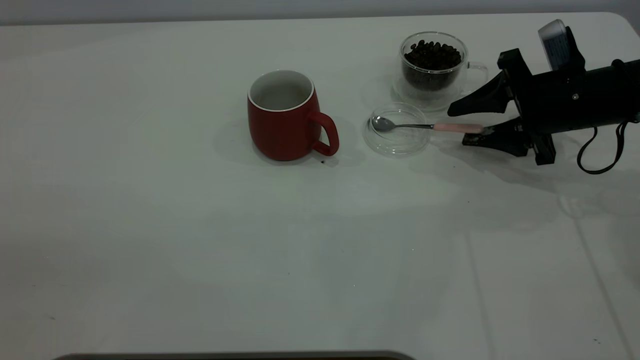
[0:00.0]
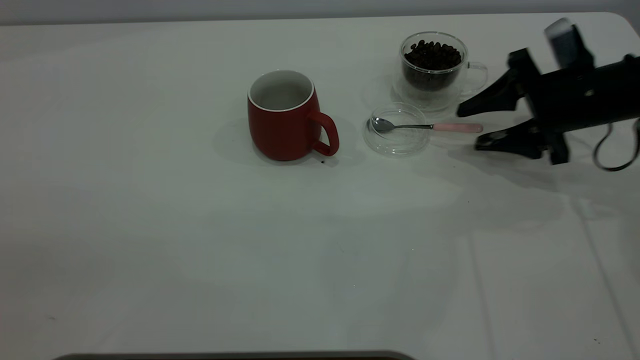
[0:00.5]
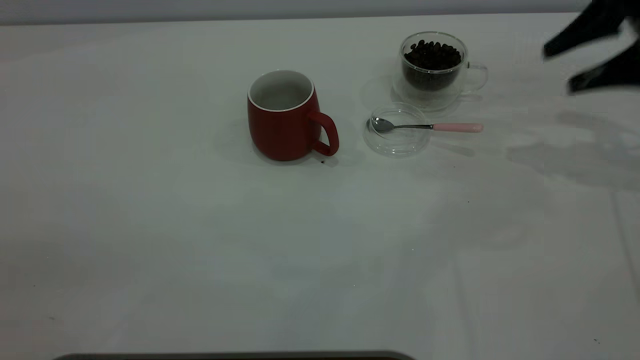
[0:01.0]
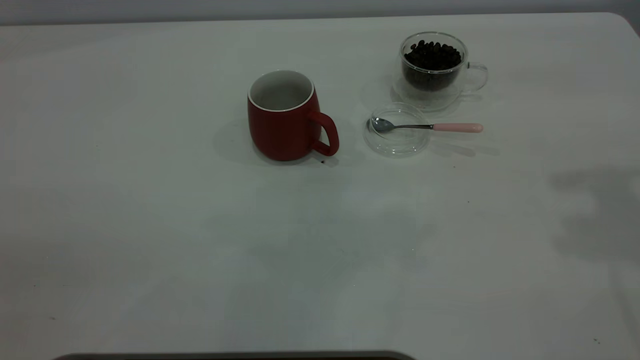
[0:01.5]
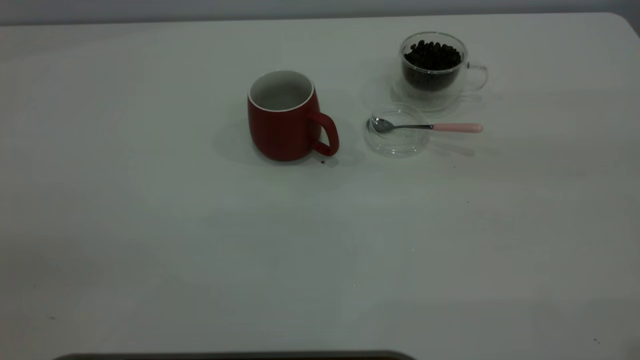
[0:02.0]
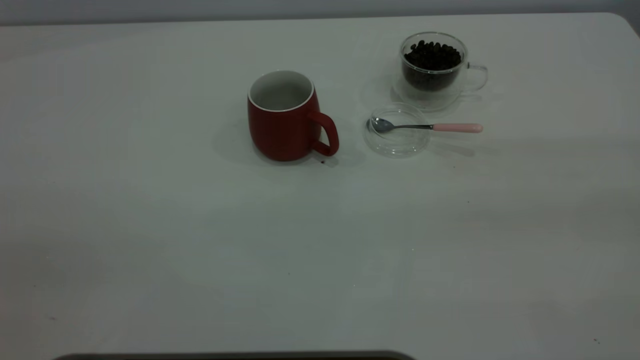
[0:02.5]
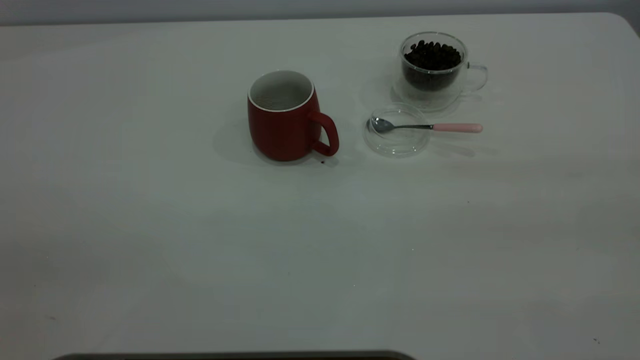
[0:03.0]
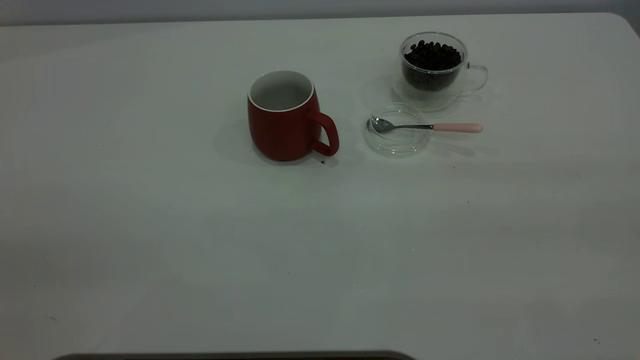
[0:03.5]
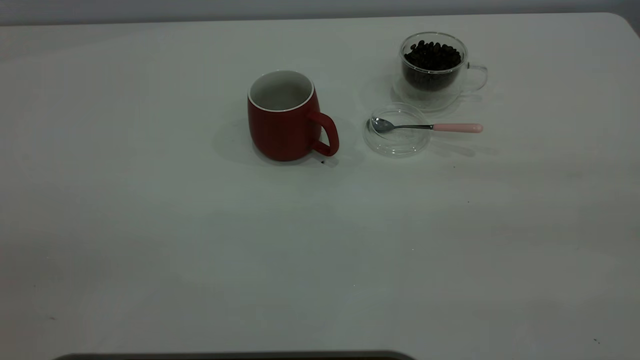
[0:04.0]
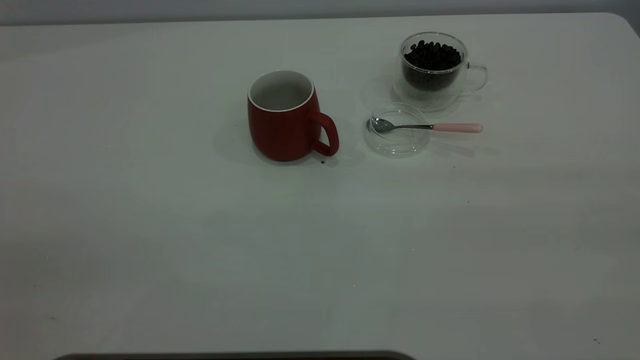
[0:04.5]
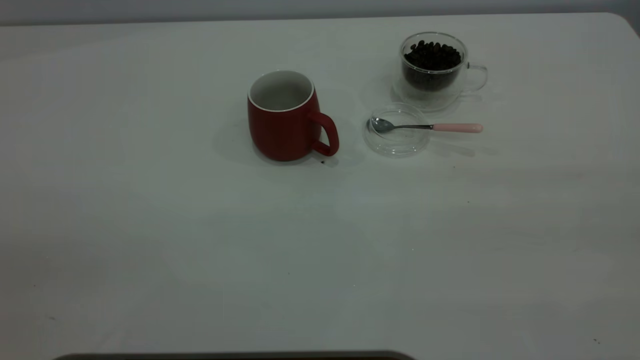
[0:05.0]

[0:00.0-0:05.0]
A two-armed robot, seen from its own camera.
Task of the whole recording: the left gripper place the red cup in the center of the table, the right gripper take the pink spoon from the cup lid and scoop out the coffee beans from the coffee cup and put them into the red cup, the right gripper put the spoon back into the cup lid.
0:00.0 to 0:02.5: The right gripper shifts about 40 cm backward and upward.

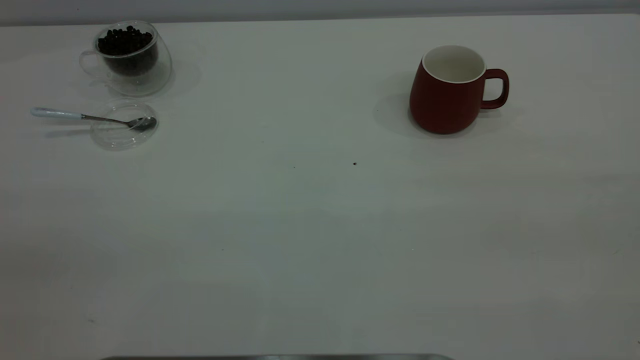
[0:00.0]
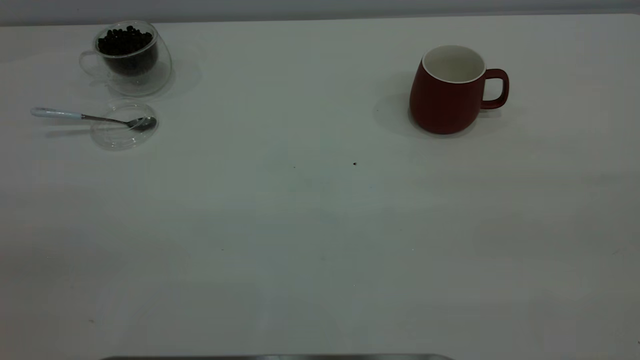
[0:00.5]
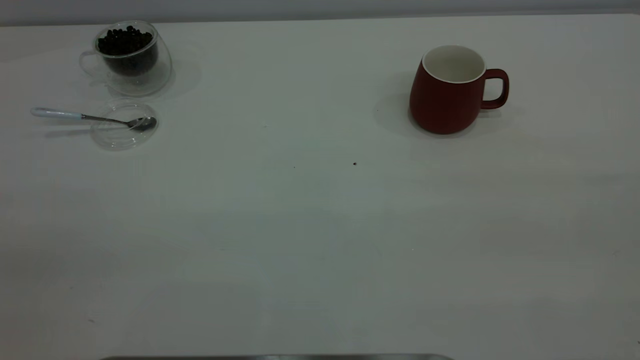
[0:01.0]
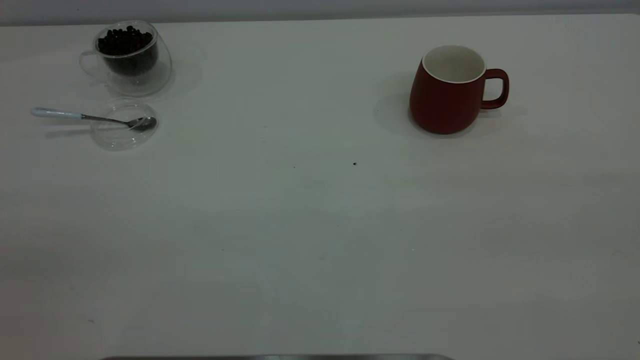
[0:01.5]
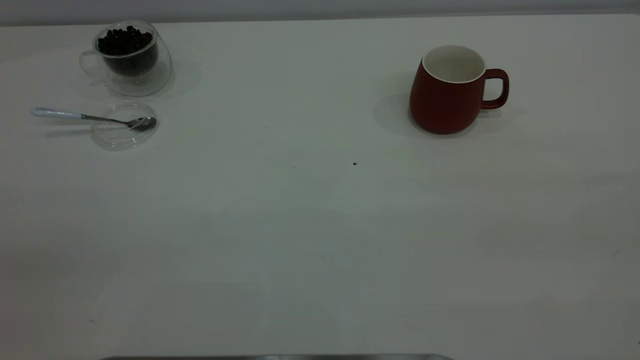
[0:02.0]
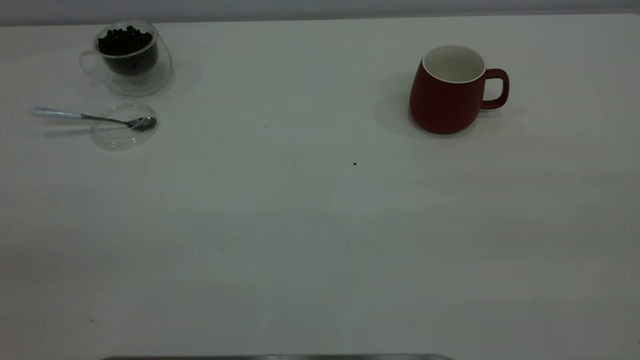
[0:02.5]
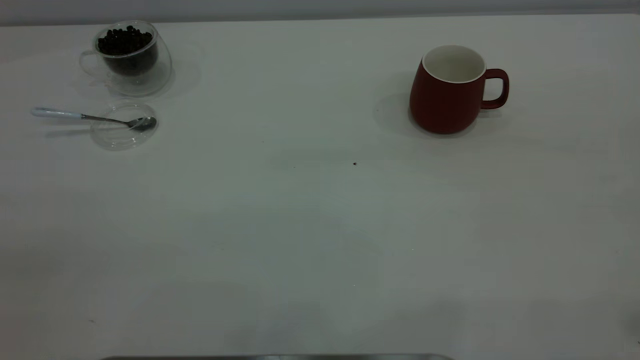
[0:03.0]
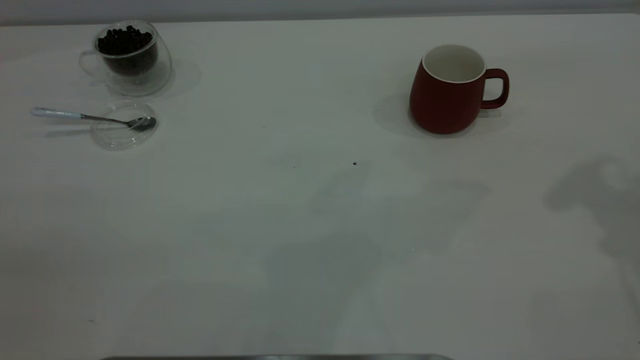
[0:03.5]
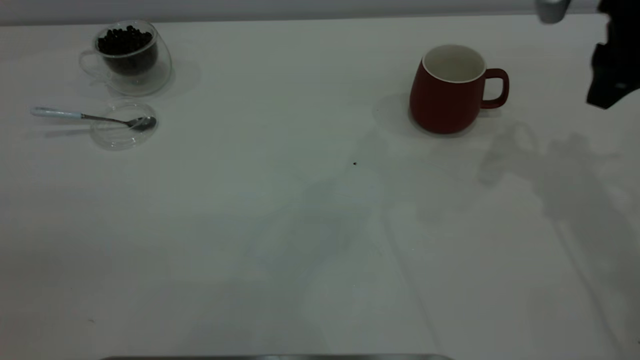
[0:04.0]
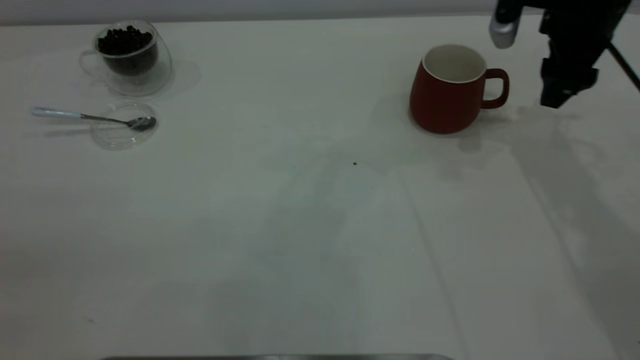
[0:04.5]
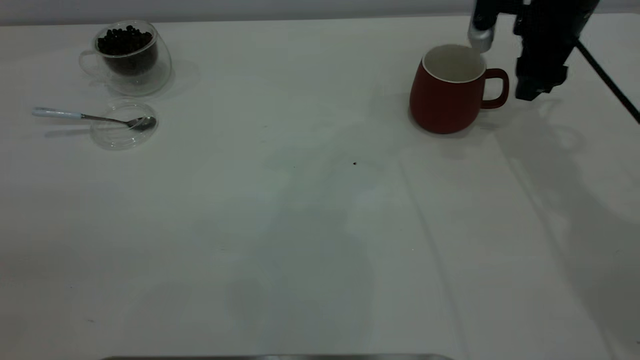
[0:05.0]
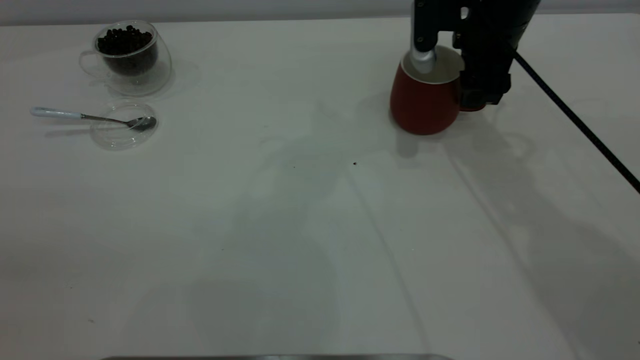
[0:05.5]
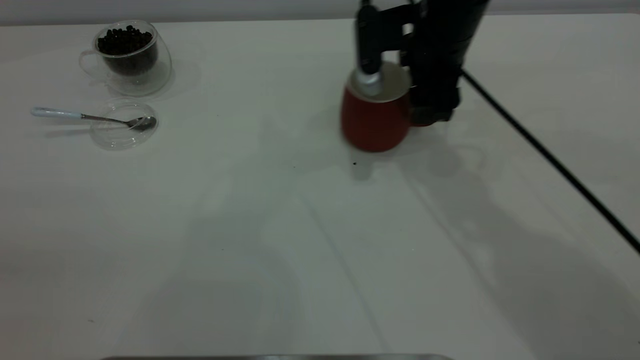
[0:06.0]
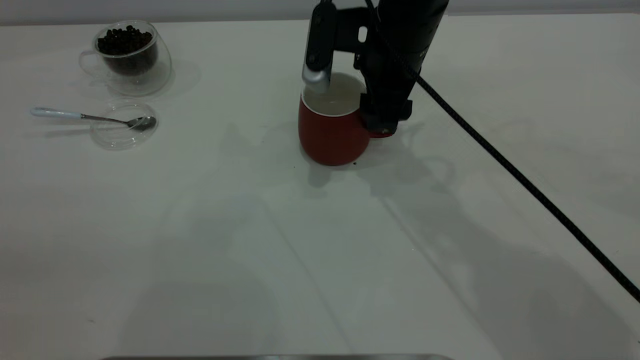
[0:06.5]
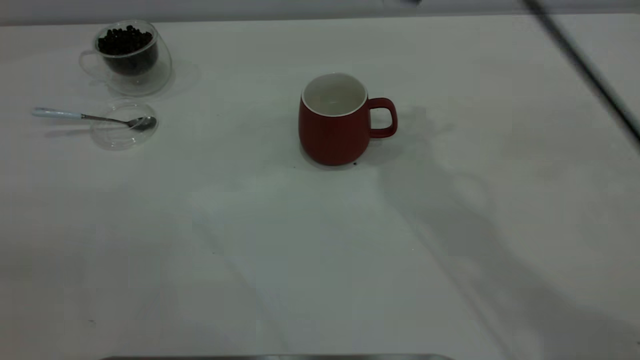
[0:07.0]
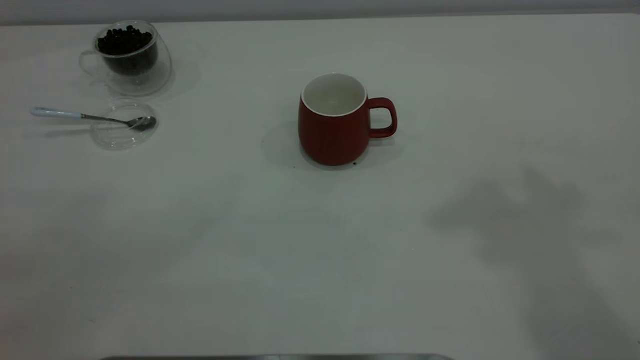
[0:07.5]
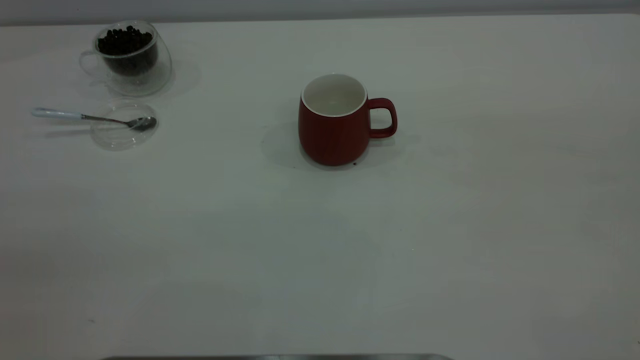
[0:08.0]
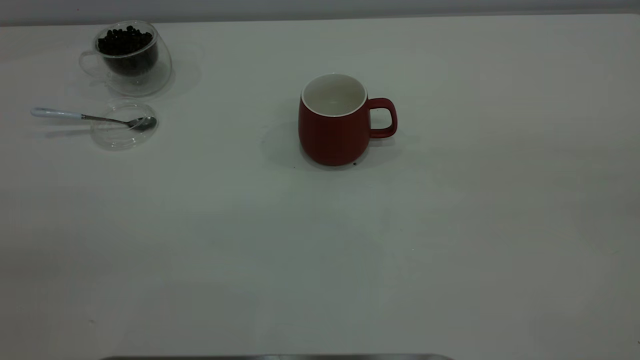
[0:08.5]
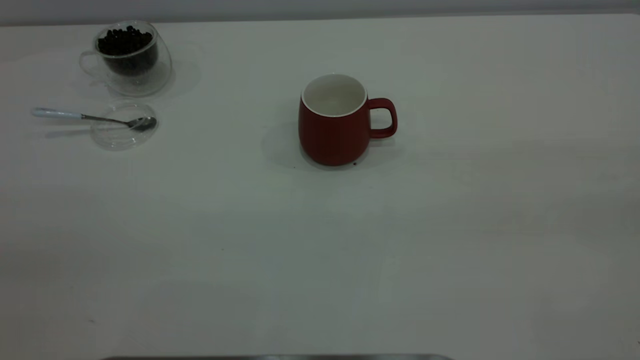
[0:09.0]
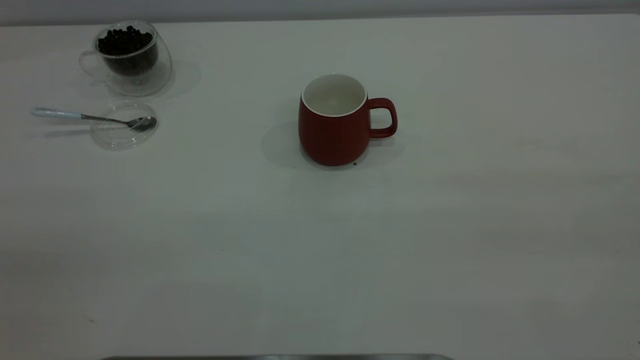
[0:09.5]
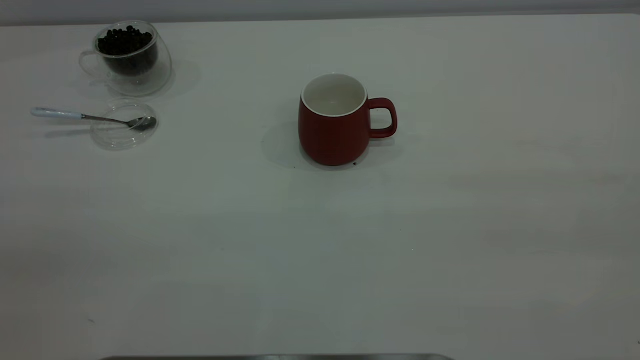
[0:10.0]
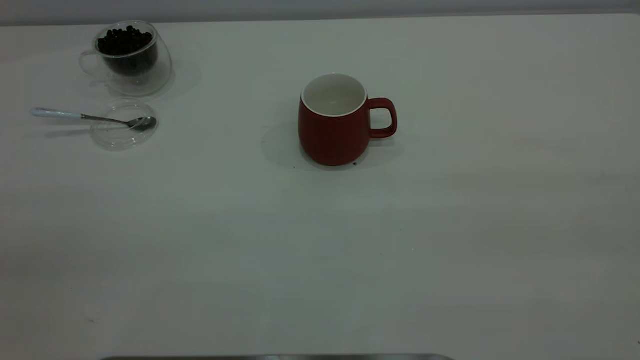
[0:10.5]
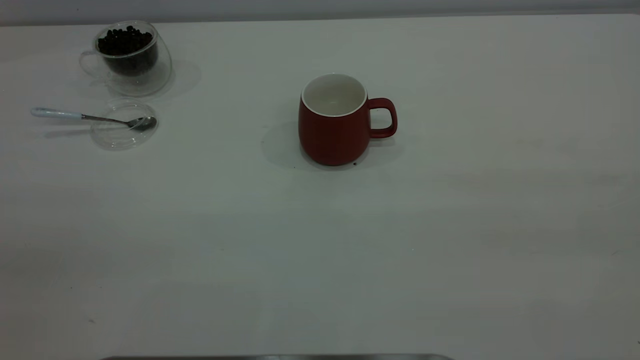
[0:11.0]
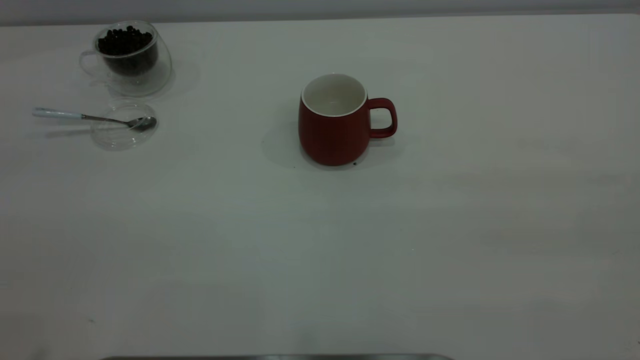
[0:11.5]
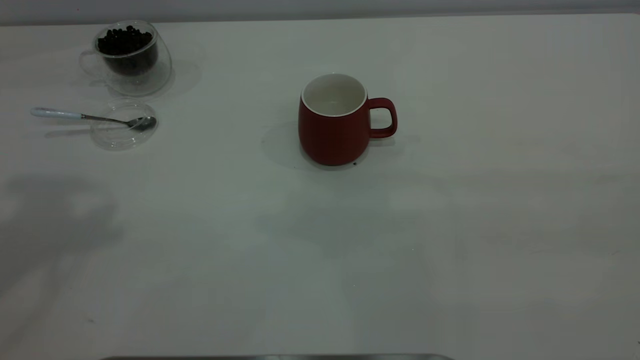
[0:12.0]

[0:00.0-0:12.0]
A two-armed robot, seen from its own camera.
Task of the whole recording: the right gripper place the red cup in the center of the table, the left gripper take the blue spoon from the cup lid and scoop out the coffee beans from the coffee cup and put them into the red cup, the left gripper put the spoon back into the cup lid.
Step, 0:00.0 to 0:06.5: Move the cup to the center of view.
0:00.0 to 0:02.0: The two grippers keep their place.
0:02.0 to 0:04.0: The right gripper heads forward, covering roughly 35 cm.
0:04.0 to 0:06.0: The right gripper travels to the left and downward by roughly 20 cm.
0:06.0 to 0:08.0: The right gripper heads backward, upward and to the right, covering roughly 50 cm.

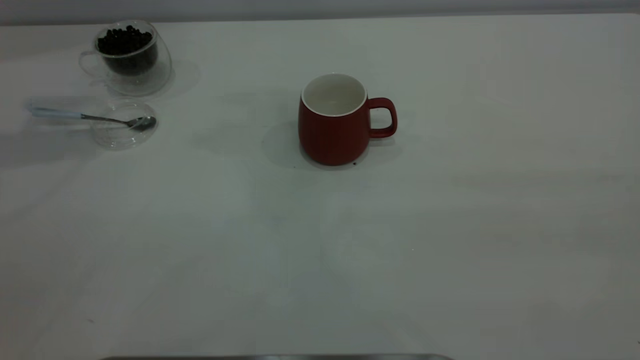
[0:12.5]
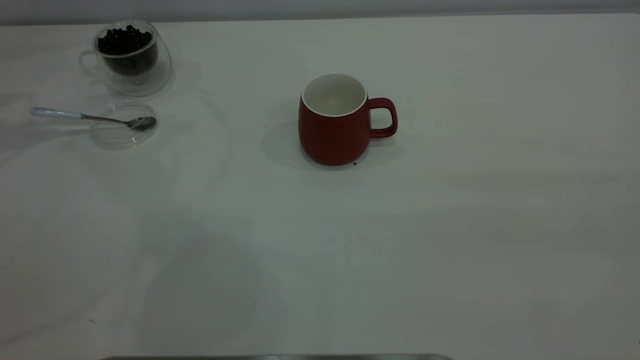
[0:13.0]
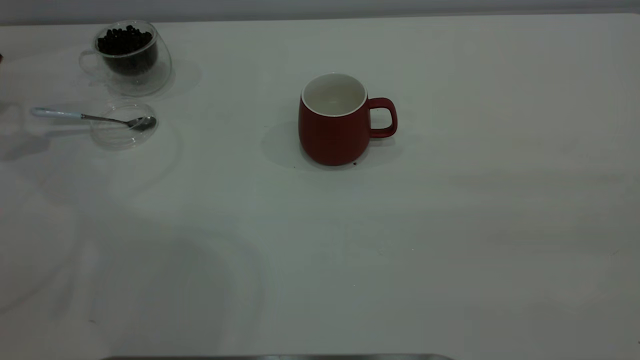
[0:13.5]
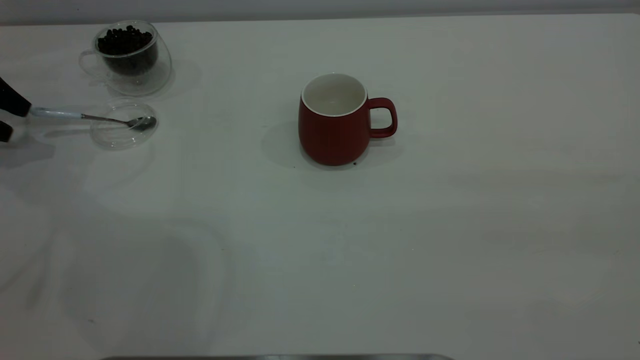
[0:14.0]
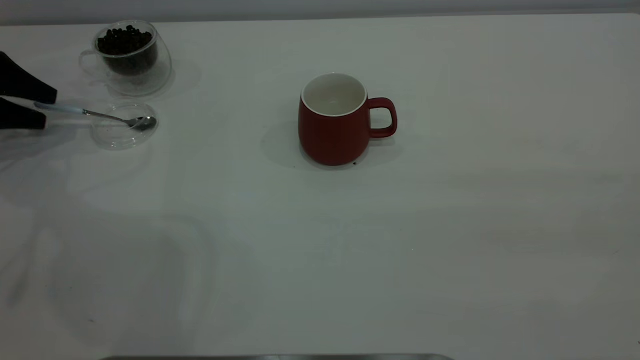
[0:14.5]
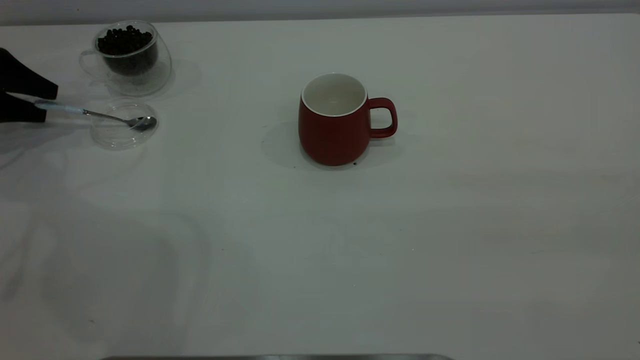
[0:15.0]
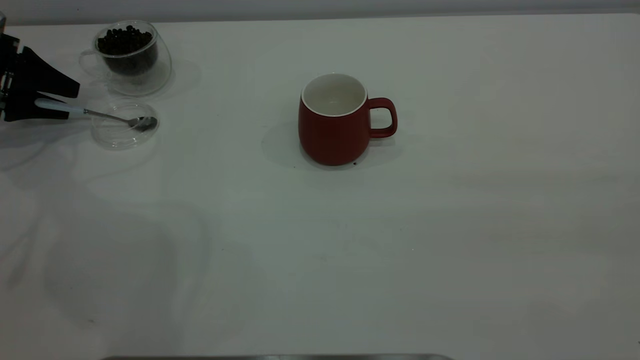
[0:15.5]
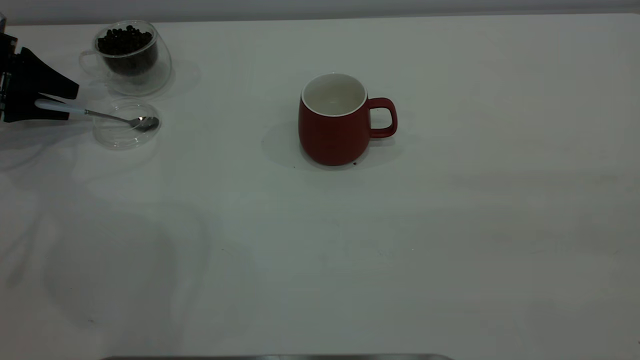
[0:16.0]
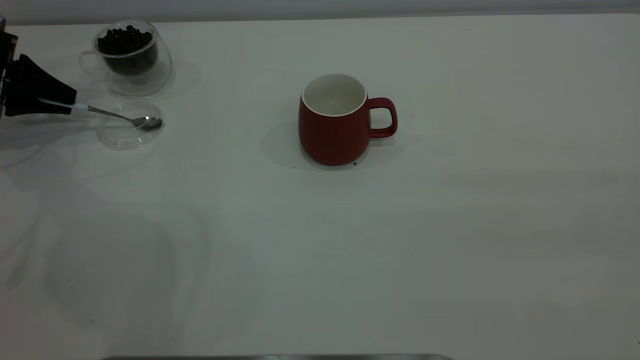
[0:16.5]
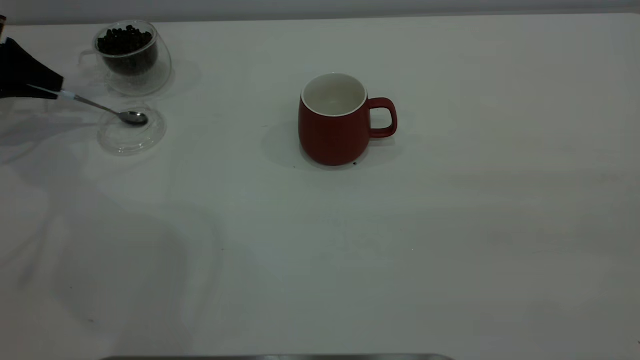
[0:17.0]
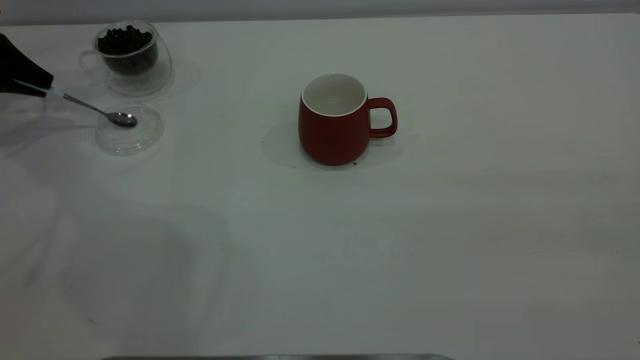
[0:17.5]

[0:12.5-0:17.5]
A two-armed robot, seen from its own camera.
Task of the whole recording: the right gripper place the red cup in the center of the table, the left gripper take the blue spoon from the cup lid and scoop out the coffee beans from the coffee cup and put them into the red cup, the left gripper put the spoon back into the cup lid.
0:12.5 to 0:15.0: The left gripper is displaced downward and to the left by some 30 cm.
0:15.0 to 0:17.5: The left gripper closes.
